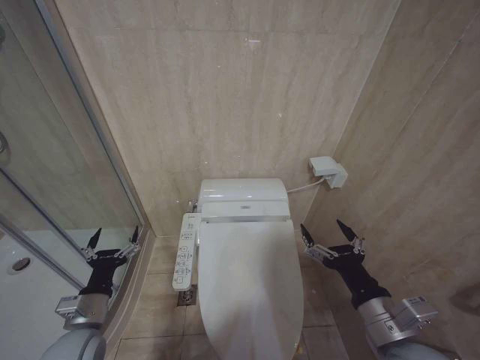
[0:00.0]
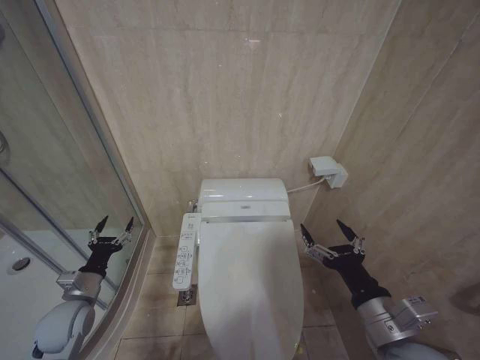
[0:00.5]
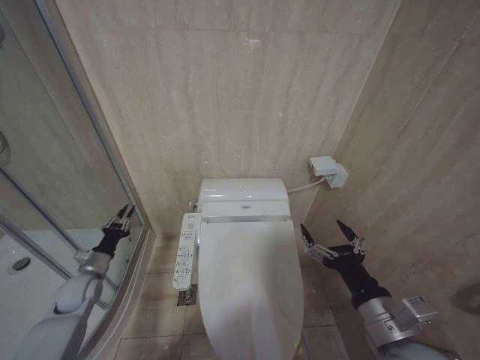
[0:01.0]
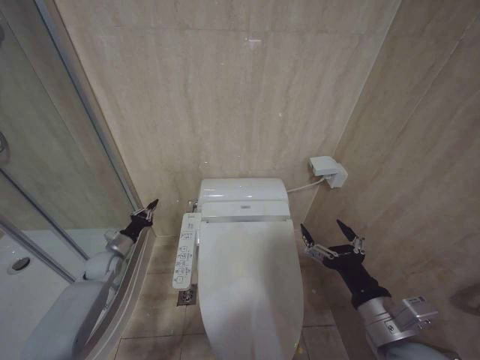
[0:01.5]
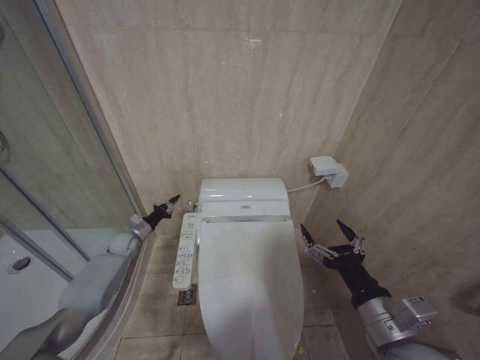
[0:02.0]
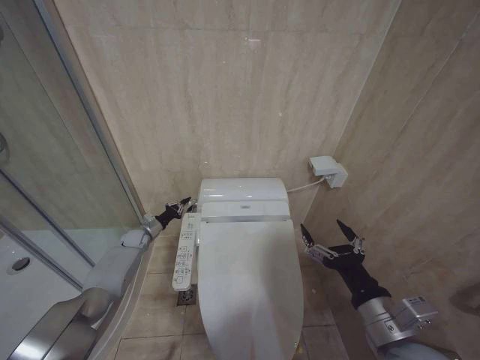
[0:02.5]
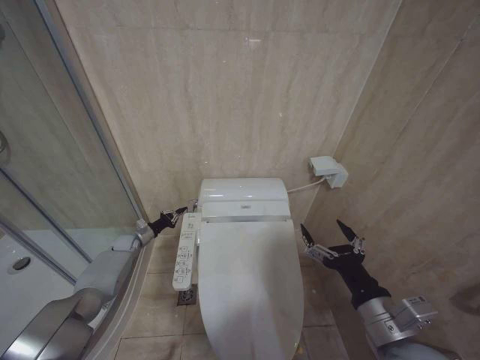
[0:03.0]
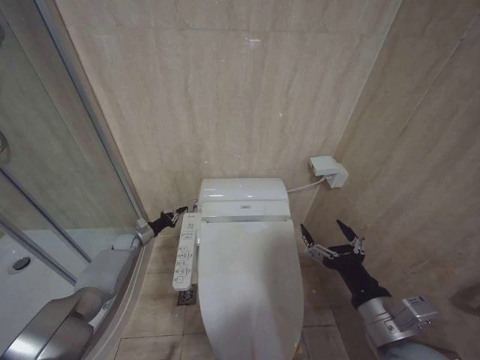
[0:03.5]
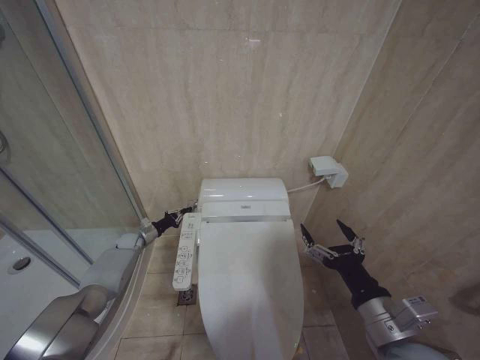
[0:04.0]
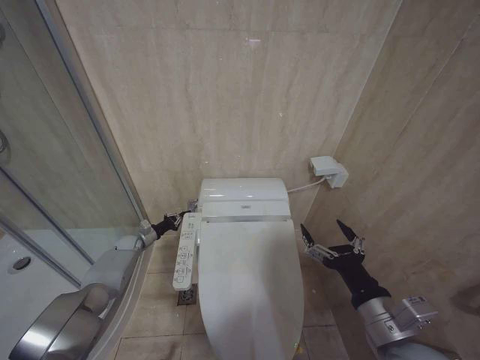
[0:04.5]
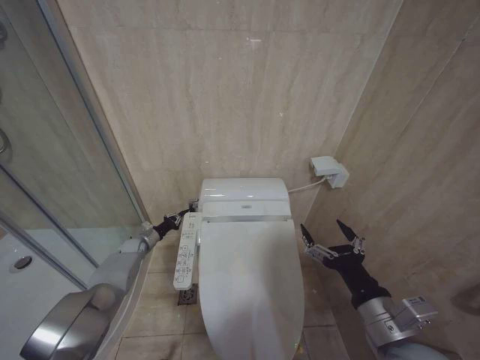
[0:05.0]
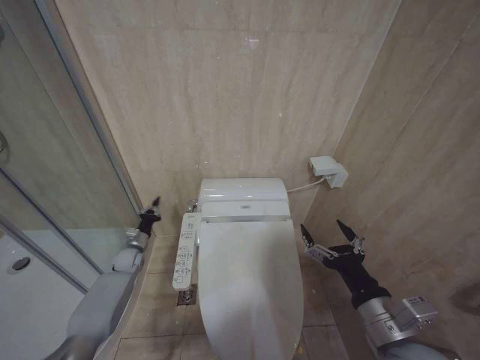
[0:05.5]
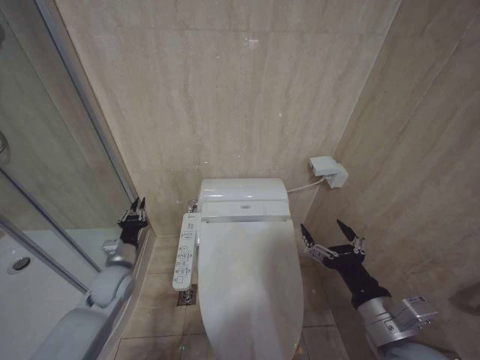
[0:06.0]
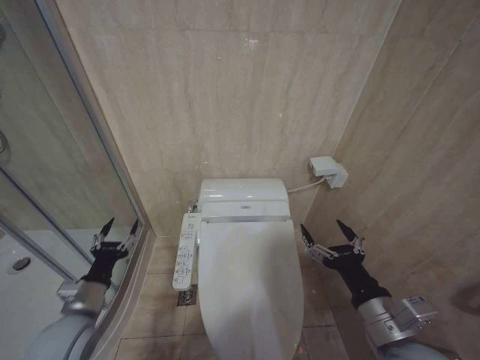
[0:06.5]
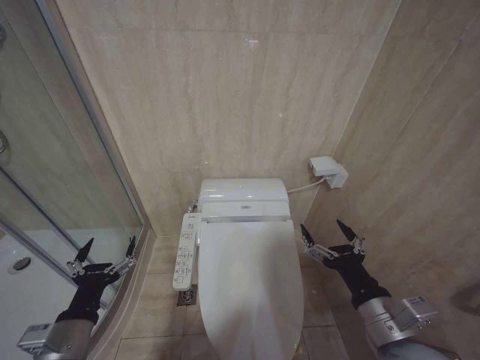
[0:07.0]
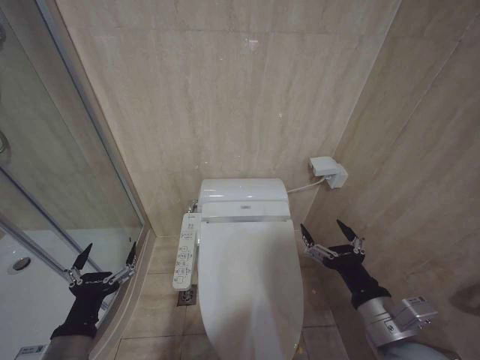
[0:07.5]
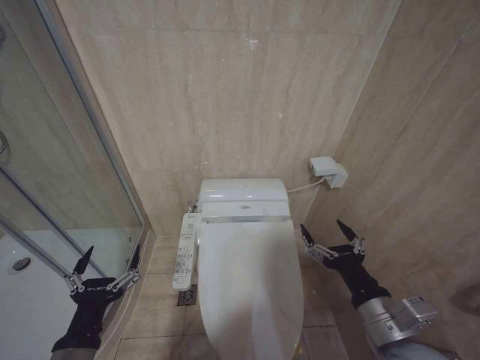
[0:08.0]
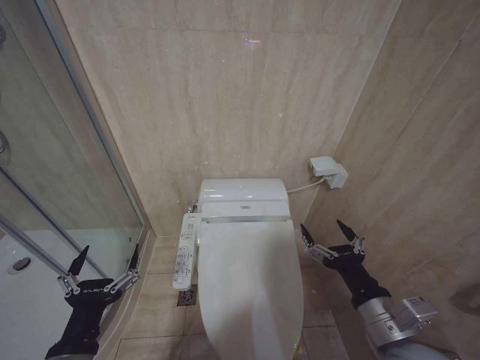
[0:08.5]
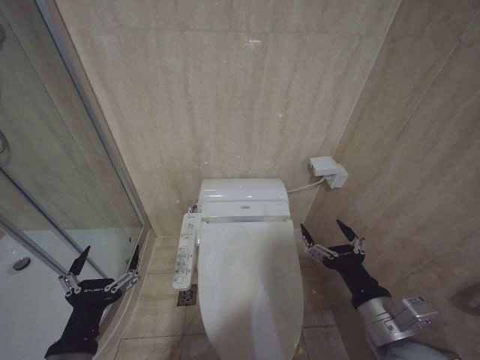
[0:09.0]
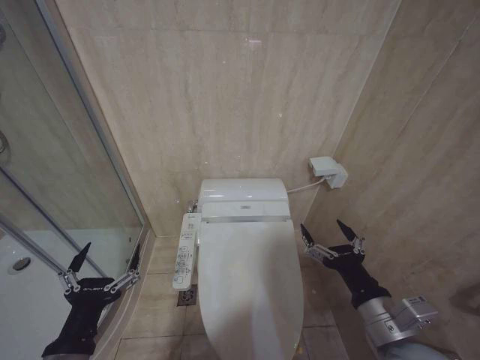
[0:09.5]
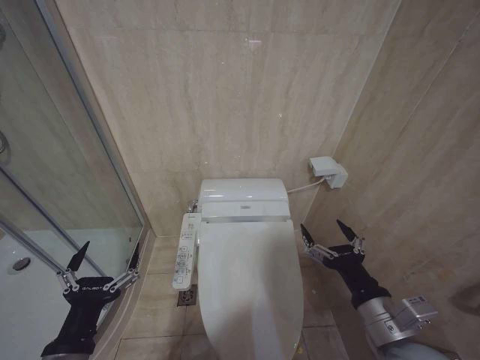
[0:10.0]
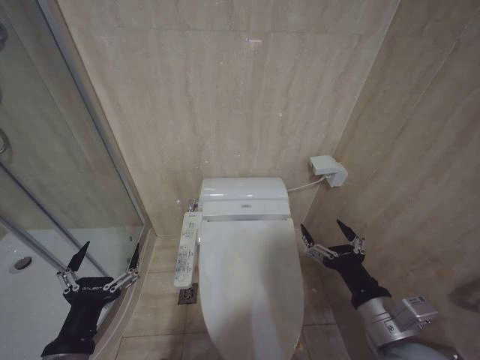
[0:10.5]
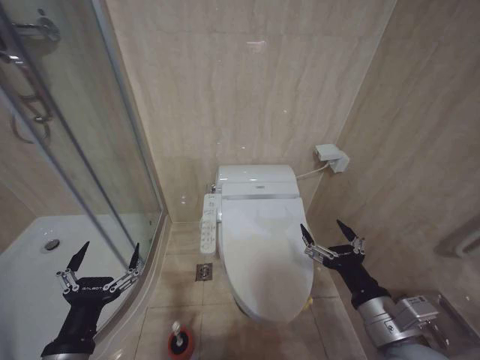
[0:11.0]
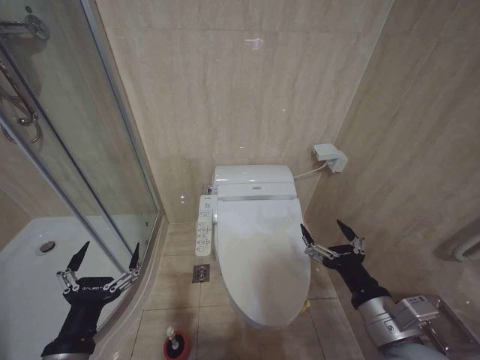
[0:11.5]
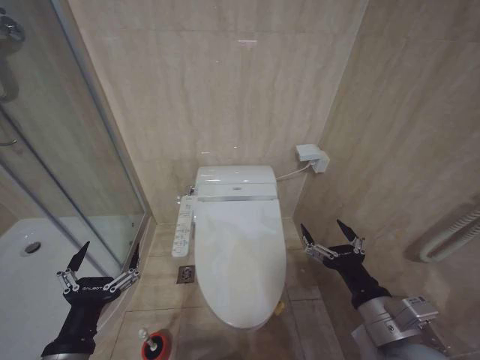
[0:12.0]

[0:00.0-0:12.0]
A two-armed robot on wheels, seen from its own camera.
Task of the whole recording: Open the toilet lid, clean the toilet bowl with a toilet brush, close the toilet lid, and flush.
0:00.0 to 0:02.0: The left gripper goes about 30 cm forward, and closes.
0:02.0 to 0:04.0: There are only small adjustments of the grippers.
0:04.0 to 0:06.0: The left gripper heads backward, upward and to the right, covering roughly 20 cm.
0:06.0 to 0:08.0: The left gripper travels backward by some 25 cm, and opens its fingers.
0:08.0 to 0:10.0: The grippers move only a little.
0:10.0 to 0:12.0: Neither gripper changes place.

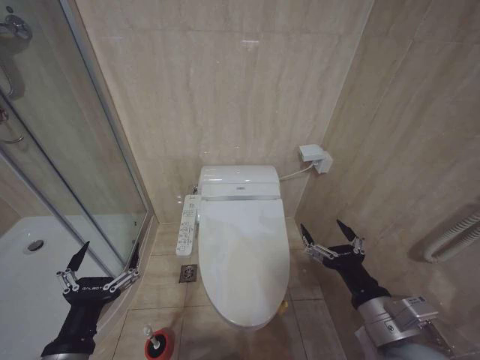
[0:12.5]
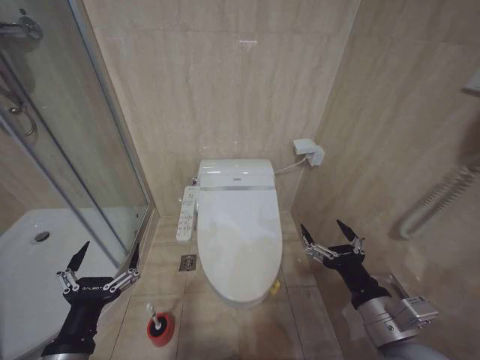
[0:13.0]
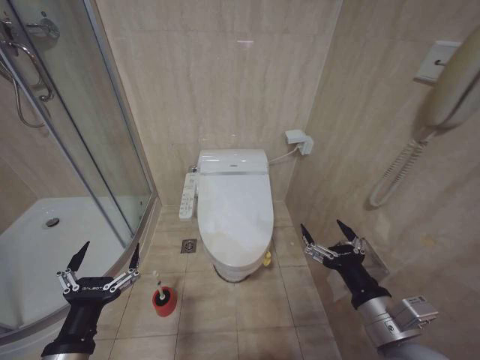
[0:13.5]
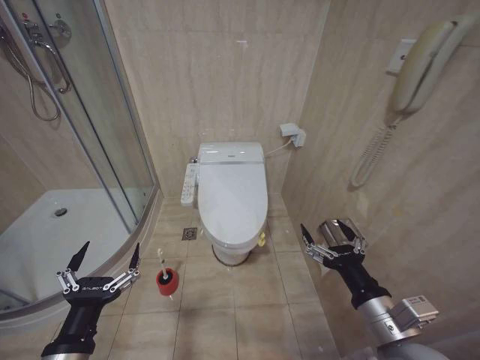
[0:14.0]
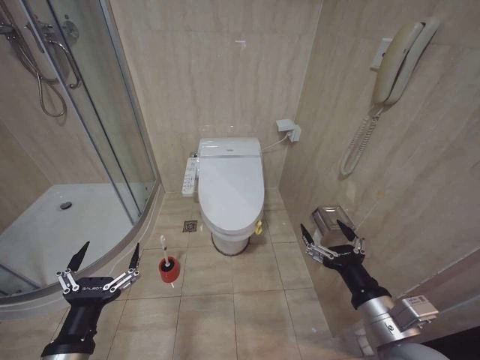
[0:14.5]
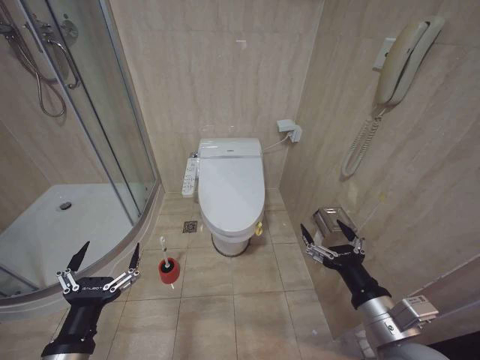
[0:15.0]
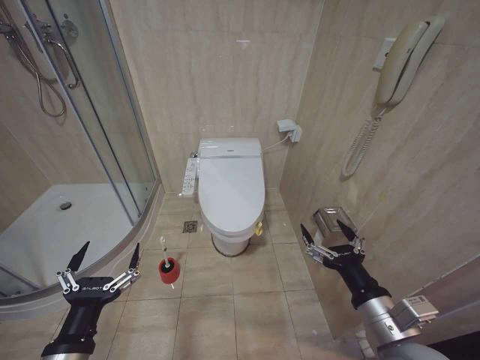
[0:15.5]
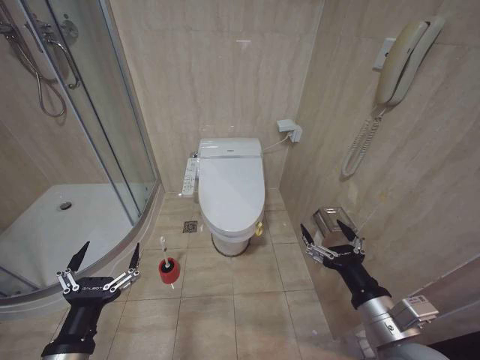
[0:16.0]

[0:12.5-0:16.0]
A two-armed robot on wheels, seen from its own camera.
Task of the whole recording: Open the toilet lid, clean the toilet bowl with a toilet brush, close the toilet lid, and flush.
0:14.5 to 0:16.0: Both grippers stay about where they are.

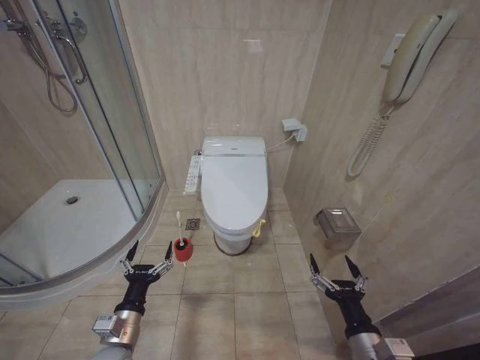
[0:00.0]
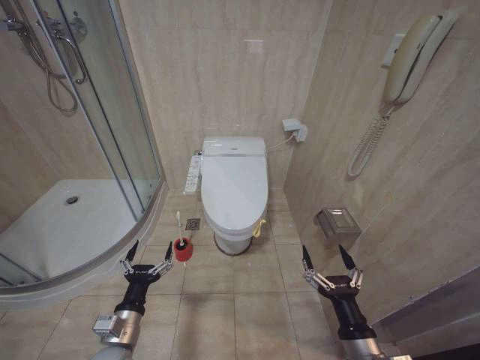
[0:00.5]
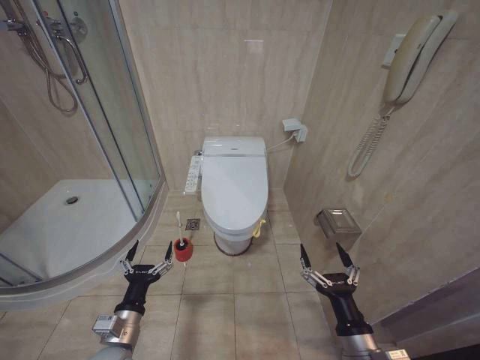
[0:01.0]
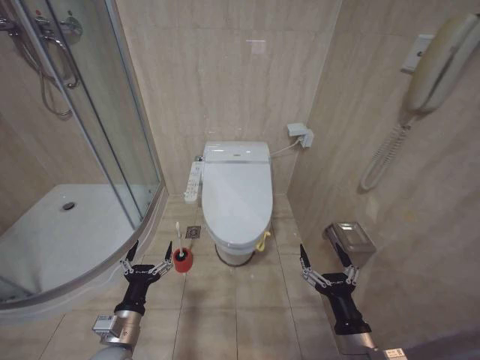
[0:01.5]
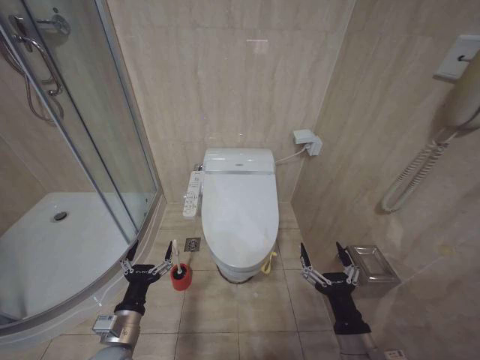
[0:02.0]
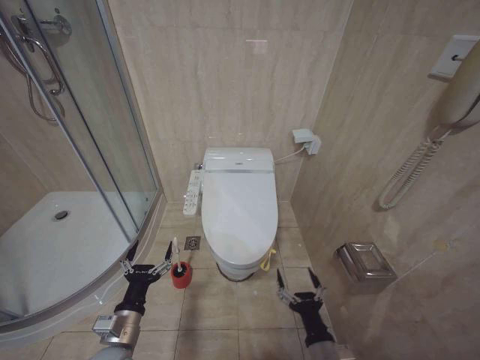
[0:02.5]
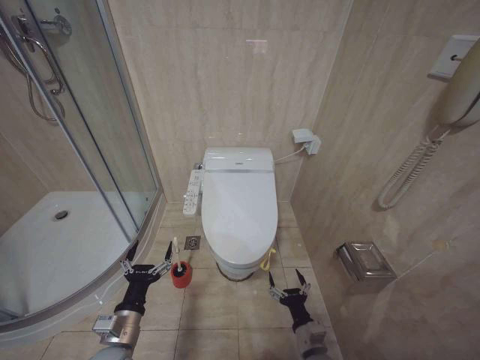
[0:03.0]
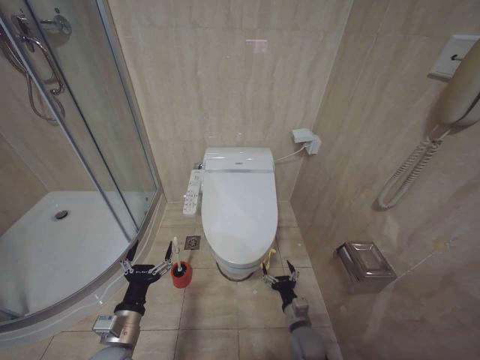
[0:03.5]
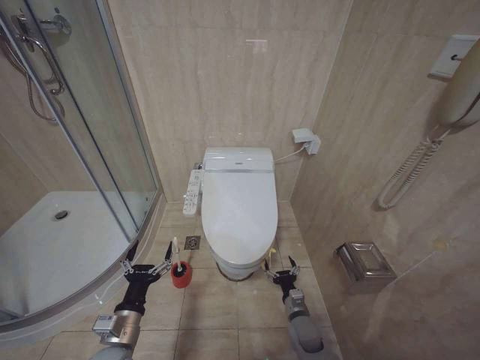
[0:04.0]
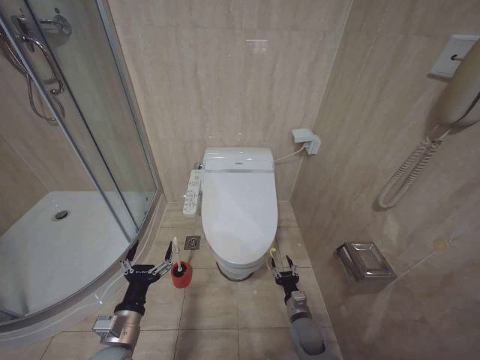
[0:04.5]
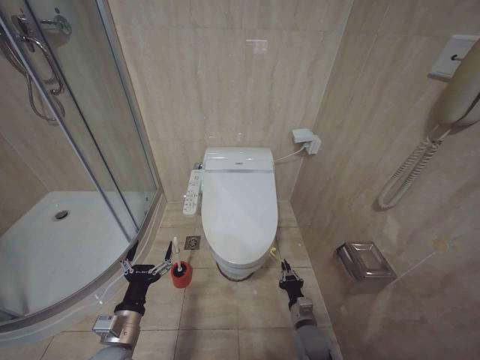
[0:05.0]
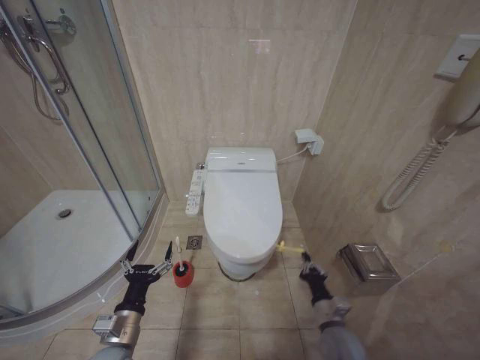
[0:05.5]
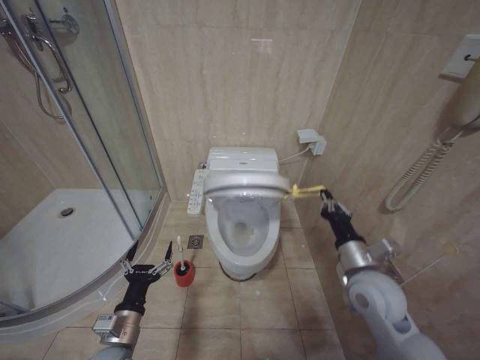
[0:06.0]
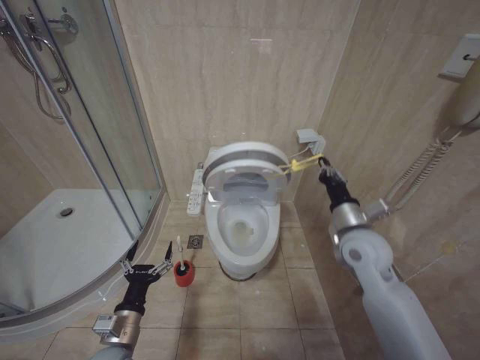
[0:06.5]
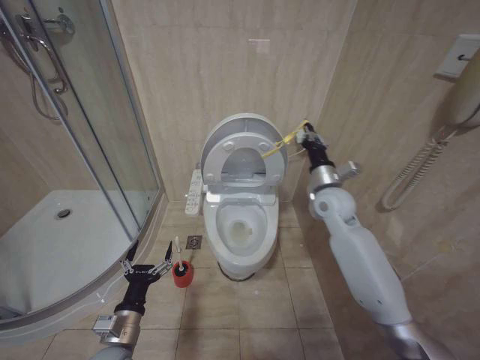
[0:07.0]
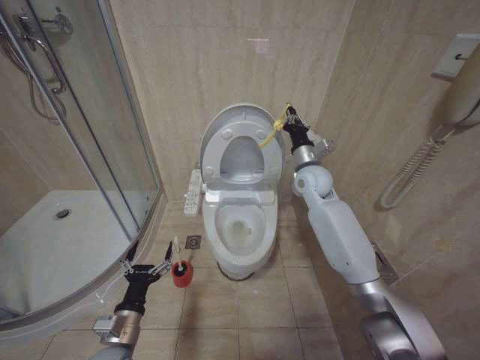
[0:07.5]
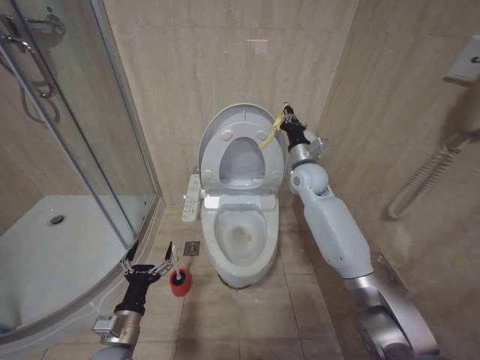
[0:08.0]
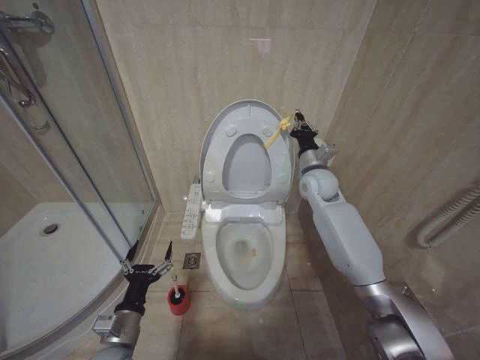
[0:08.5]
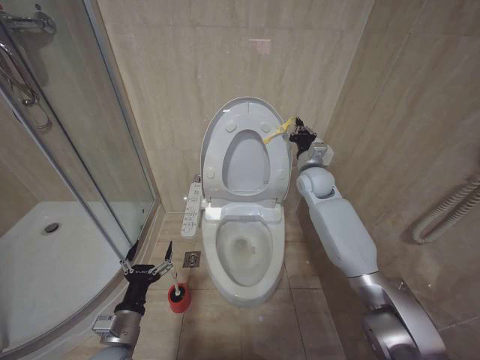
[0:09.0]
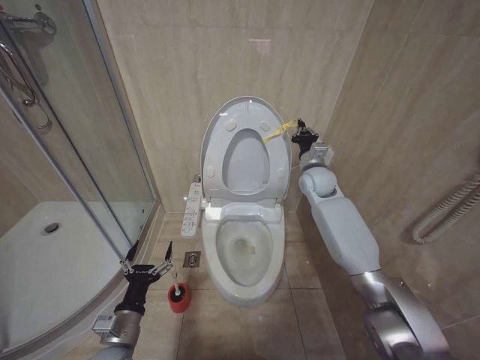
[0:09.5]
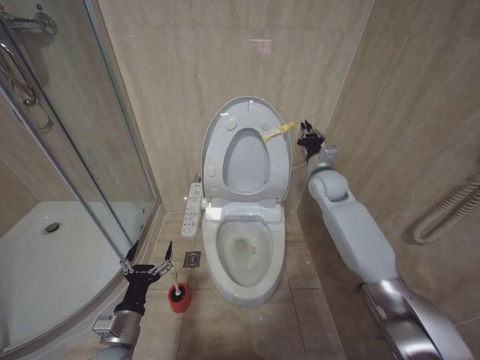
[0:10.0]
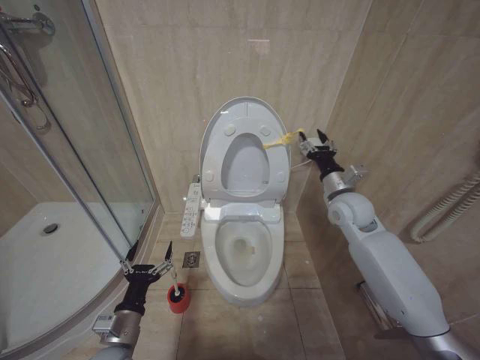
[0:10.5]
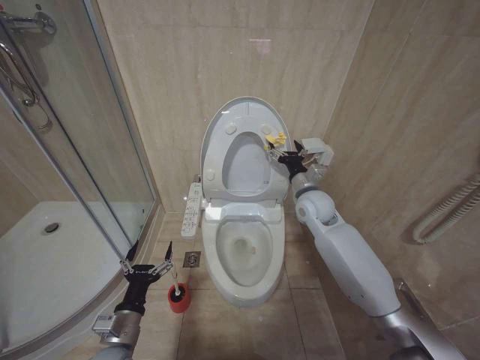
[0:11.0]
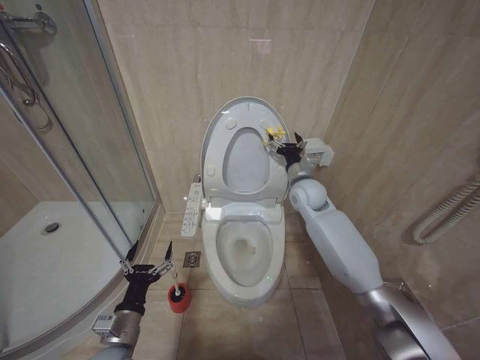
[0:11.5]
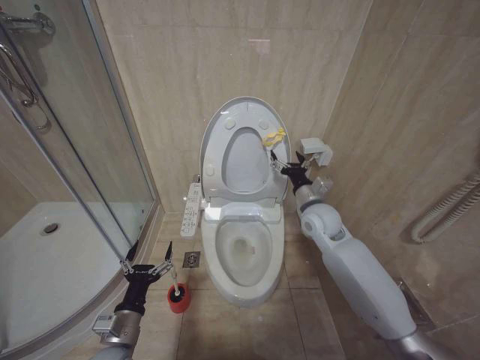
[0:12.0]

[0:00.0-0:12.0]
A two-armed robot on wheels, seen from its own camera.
Task of the whole recording: Open the toilet lid, clean the toilet bowl with a toilet brush, close the toilet lid, and flush.
0:02.0 to 0:04.0: The right gripper heads downward and forward, covering roughly 25 cm.
0:04.0 to 0:06.0: The right gripper travels upward by about 25 cm, and closes up.
0:06.0 to 0:08.0: The right gripper goes roughly 30 cm forward and upward.
0:08.0 to 0:10.0: The right gripper heads to the right, covering roughly 5 cm.
0:10.0 to 0:12.0: The right gripper moves forward and backward over approximately 10 cm, changing direction 2 times, and opens up.
